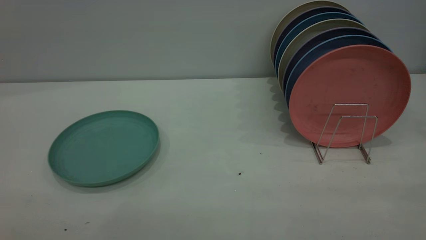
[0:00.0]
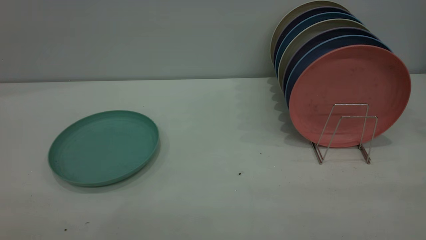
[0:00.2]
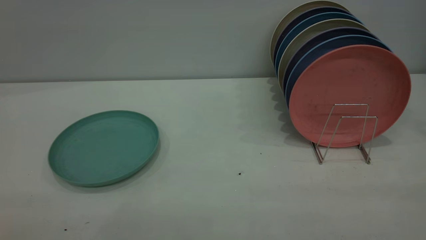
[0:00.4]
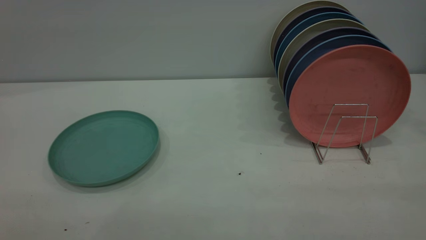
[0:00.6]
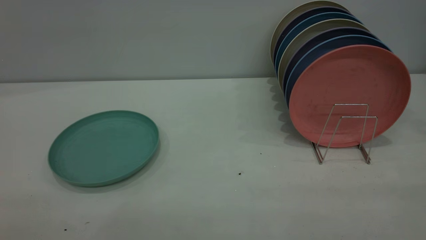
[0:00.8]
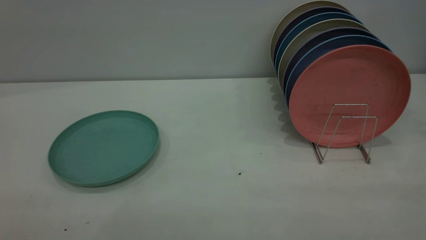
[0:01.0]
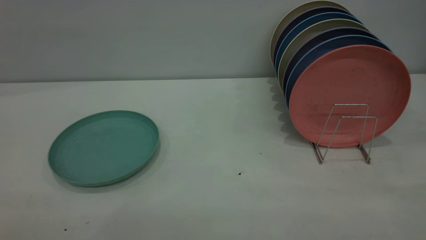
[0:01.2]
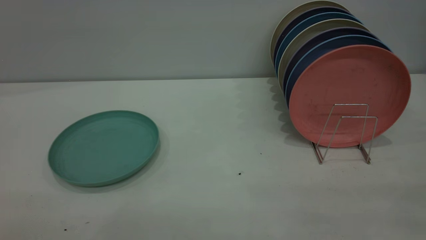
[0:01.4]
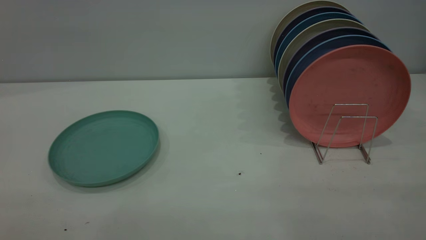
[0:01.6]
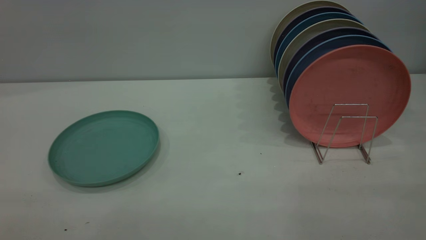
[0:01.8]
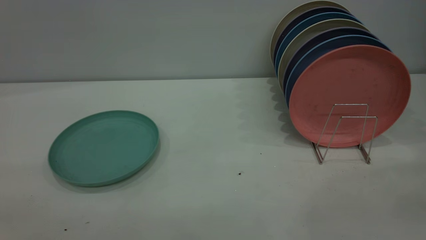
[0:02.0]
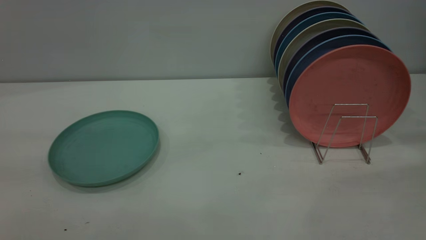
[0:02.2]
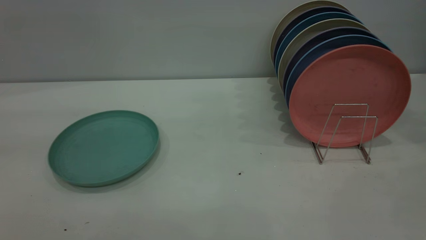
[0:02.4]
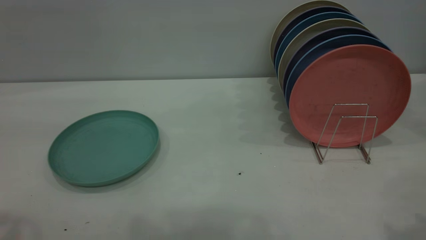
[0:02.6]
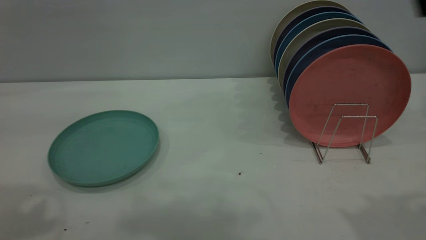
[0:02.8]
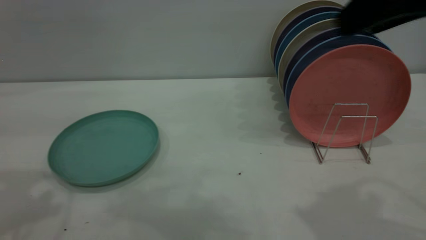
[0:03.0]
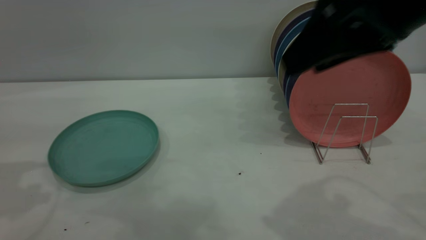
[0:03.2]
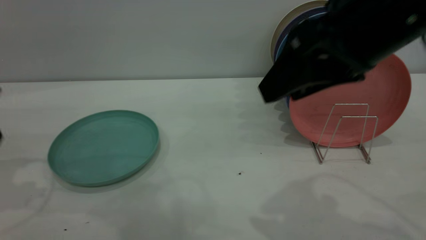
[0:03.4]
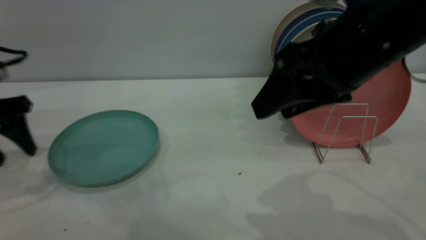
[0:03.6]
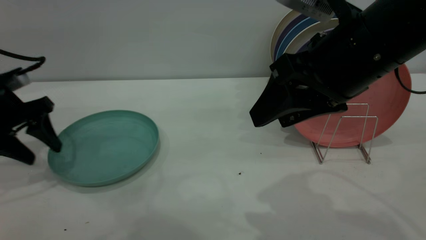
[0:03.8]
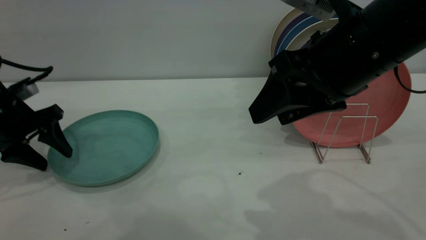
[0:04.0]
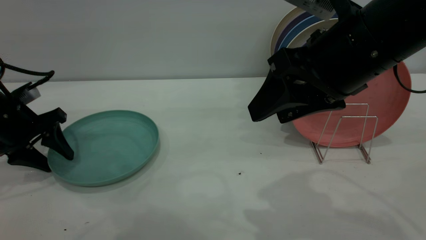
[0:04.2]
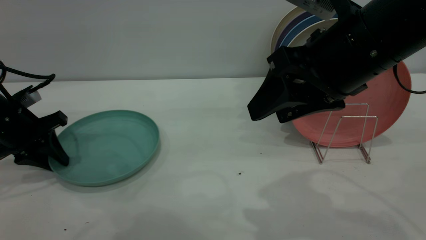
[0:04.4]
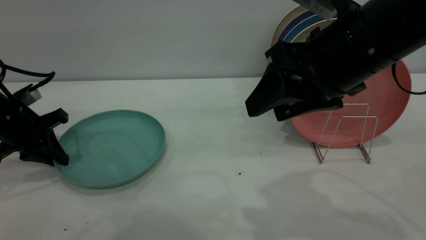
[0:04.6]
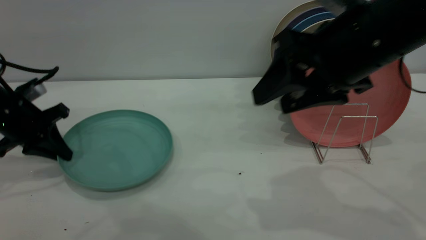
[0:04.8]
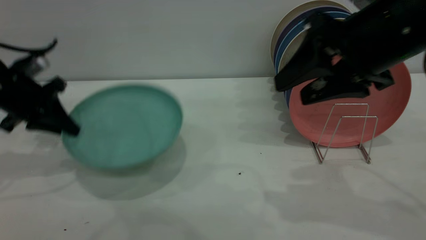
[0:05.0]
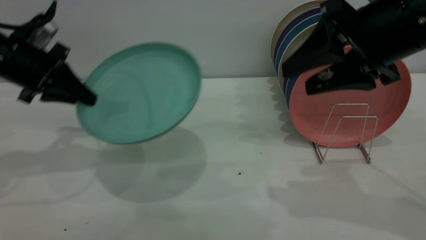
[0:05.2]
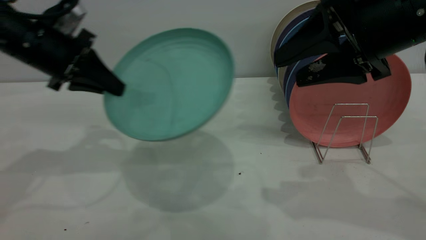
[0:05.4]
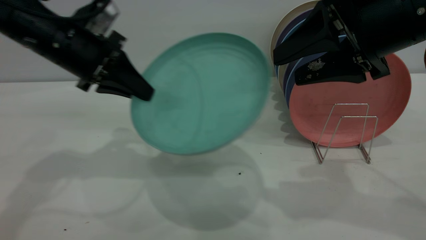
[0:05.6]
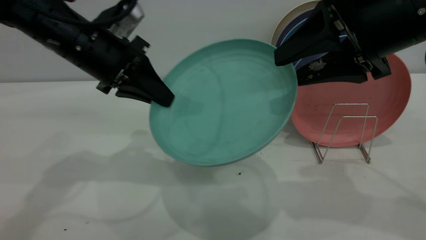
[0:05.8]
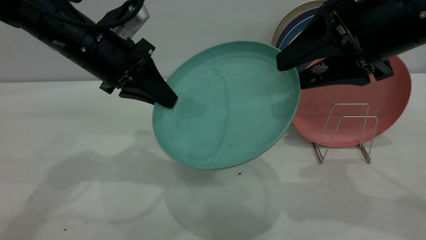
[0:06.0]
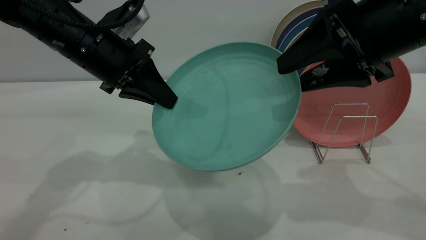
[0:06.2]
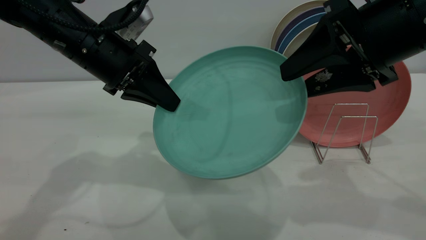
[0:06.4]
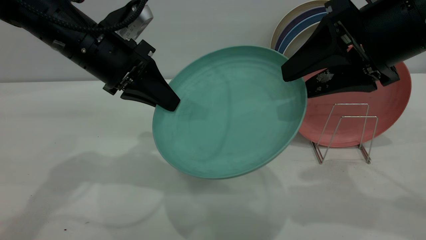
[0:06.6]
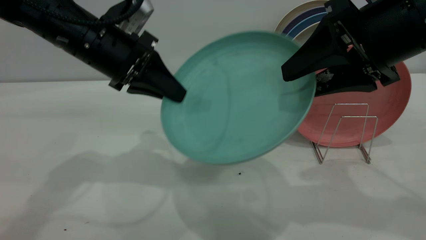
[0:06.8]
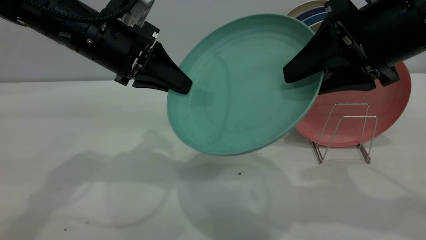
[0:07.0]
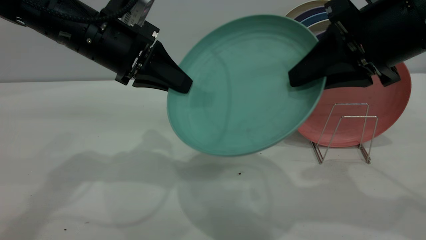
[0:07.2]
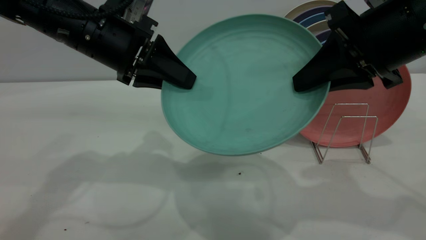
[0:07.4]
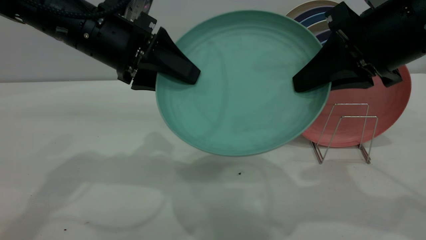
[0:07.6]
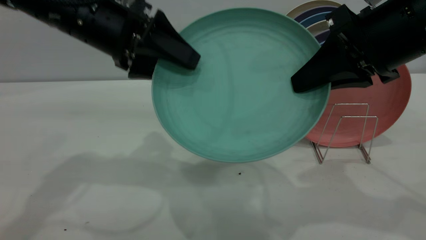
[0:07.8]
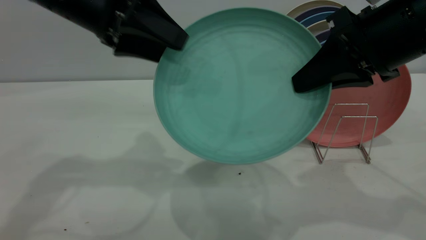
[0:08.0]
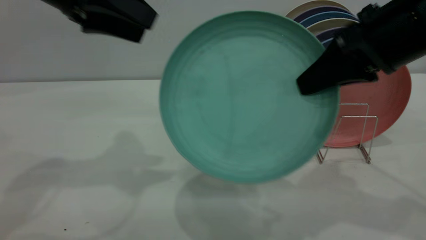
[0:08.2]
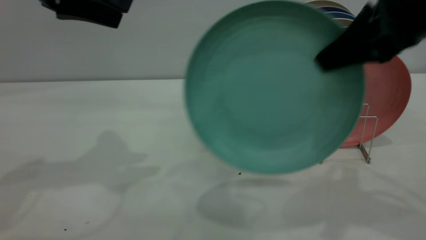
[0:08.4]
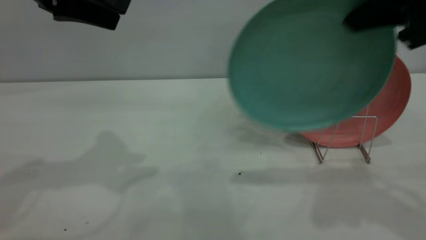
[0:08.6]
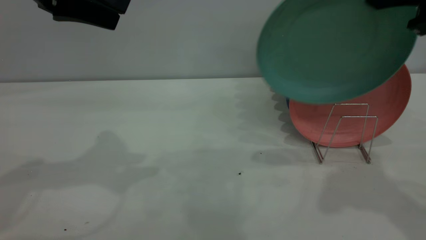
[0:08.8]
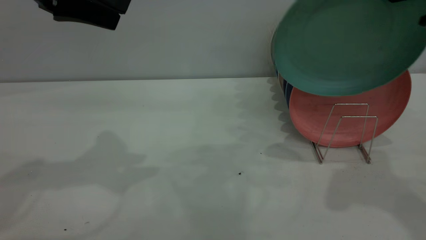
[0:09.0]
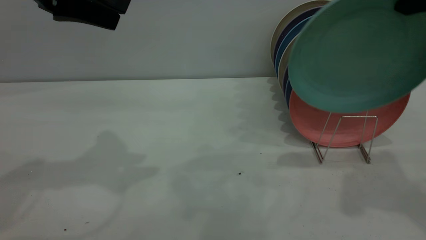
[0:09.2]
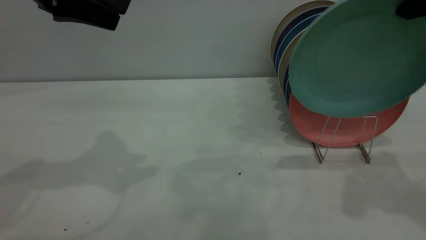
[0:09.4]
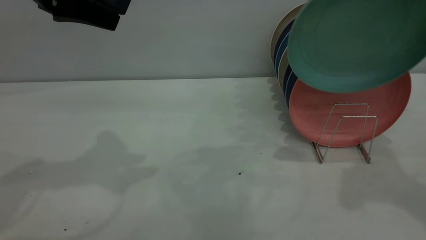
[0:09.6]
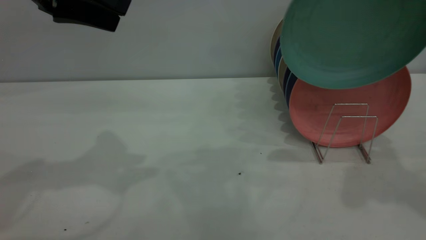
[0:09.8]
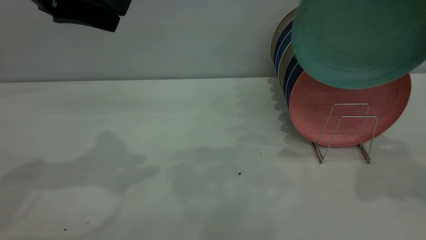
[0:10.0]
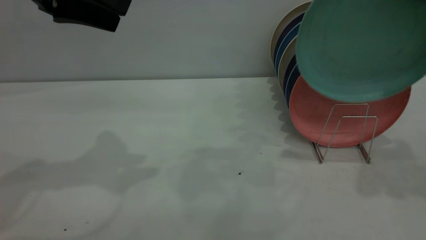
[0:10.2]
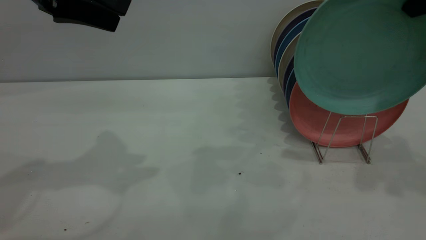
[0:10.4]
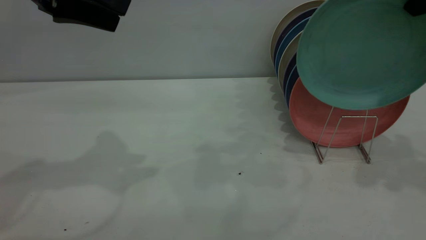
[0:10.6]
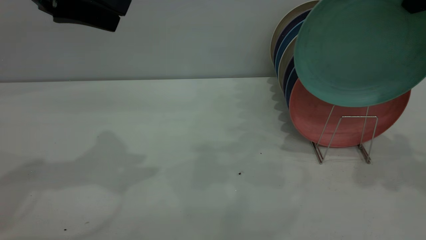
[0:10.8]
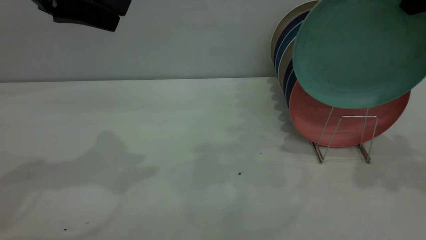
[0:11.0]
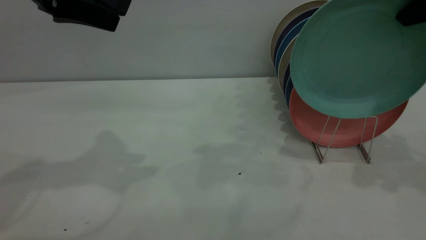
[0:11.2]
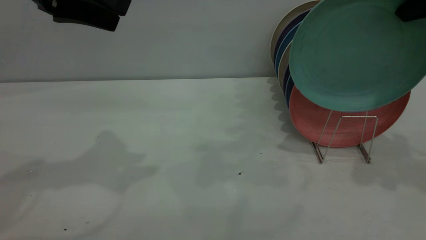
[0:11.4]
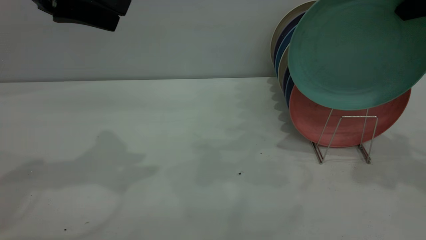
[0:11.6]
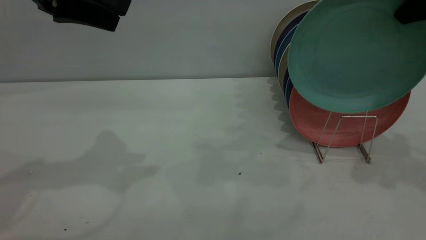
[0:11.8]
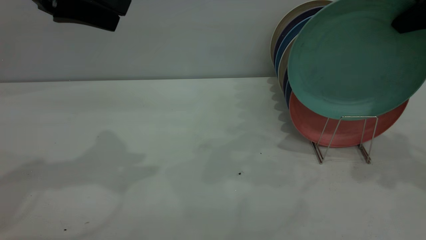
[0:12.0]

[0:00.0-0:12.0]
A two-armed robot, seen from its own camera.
Task of the whole recording: the left gripper grasp the green plate, the left gripper pass the green plate to the right gripper, and the right gripper place the green plate on the plate rack.
Step, 0:00.0 to 0:04.8: Pick up the plate with the left gripper.
Step, 0:05.0 to 0:08.0: Pass the plate from the left gripper to the right gripper.
0:00.0 to 0:01.6: The two grippers keep their place.
0:01.6 to 0:03.0: The right gripper travels forward and to the left by approximately 30 cm.
0:03.0 to 0:04.4: The right gripper heads downward and to the left, covering approximately 10 cm, while the left gripper shifts approximately 25 cm downward and forward, and closes its fingers.
0:04.4 to 0:06.0: The right gripper goes about 5 cm to the right. Meanwhile the left gripper goes some 20 cm to the right and upward.
0:06.0 to 0:07.6: The left gripper opens. Meanwhile the right gripper closes its fingers.
0:07.6 to 0:09.0: The left gripper is displaced upward and to the left by approximately 10 cm, while the right gripper goes some 10 cm upward and to the right.
0:09.0 to 0:10.4: The right gripper shifts by roughly 5 cm.
0:10.4 to 0:12.0: There are only small adjustments of the grippers.

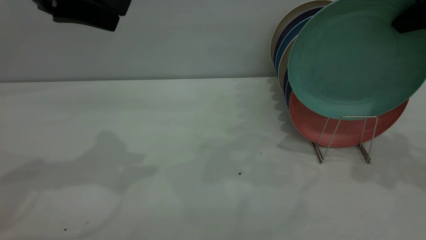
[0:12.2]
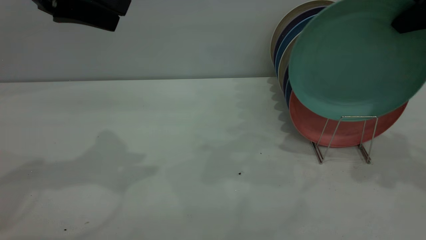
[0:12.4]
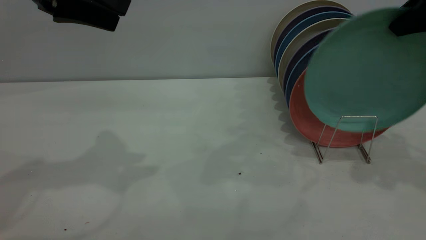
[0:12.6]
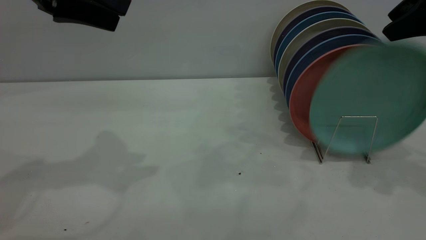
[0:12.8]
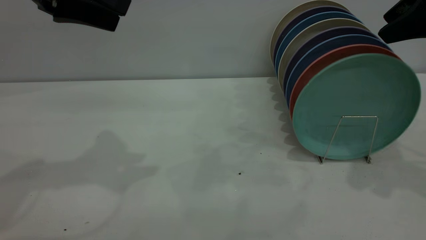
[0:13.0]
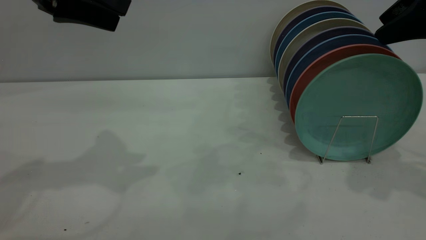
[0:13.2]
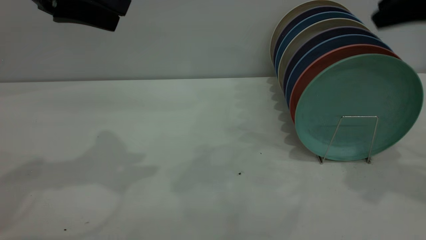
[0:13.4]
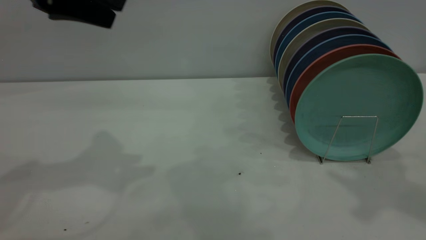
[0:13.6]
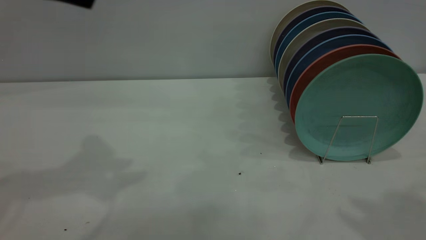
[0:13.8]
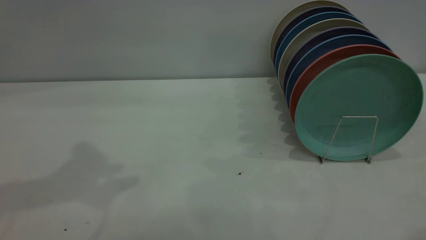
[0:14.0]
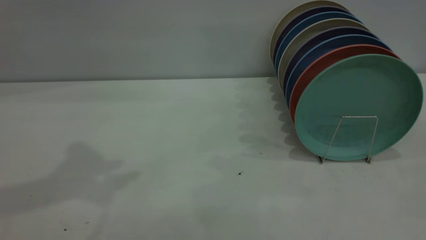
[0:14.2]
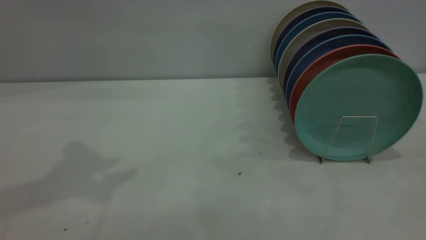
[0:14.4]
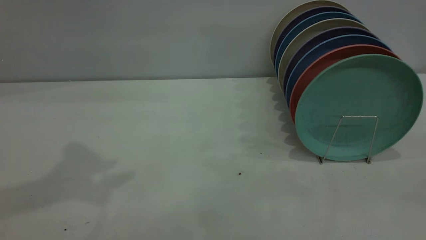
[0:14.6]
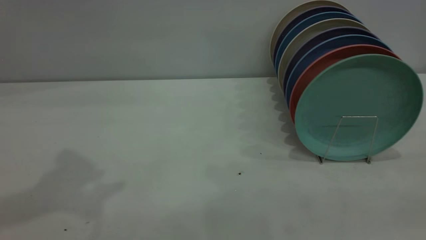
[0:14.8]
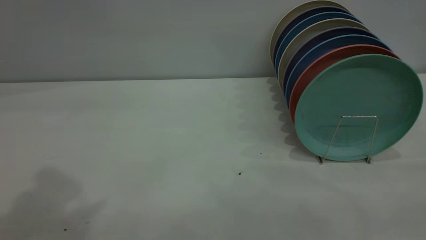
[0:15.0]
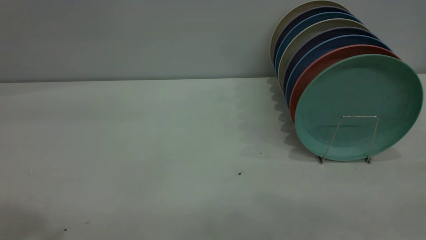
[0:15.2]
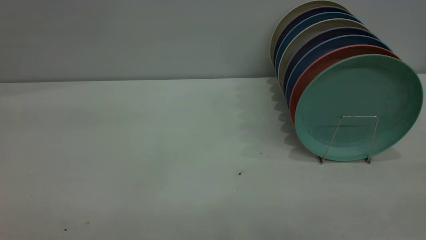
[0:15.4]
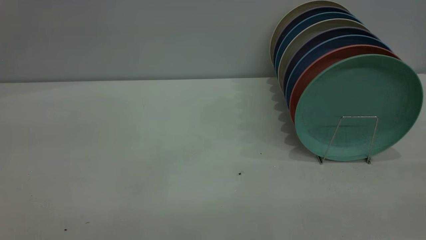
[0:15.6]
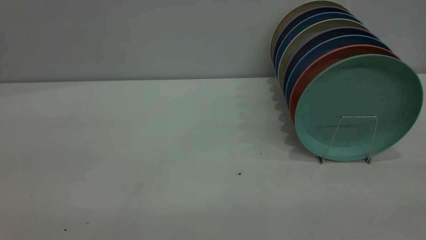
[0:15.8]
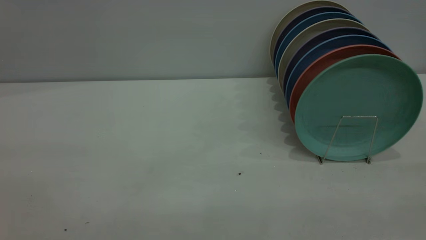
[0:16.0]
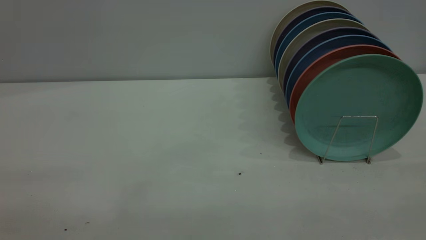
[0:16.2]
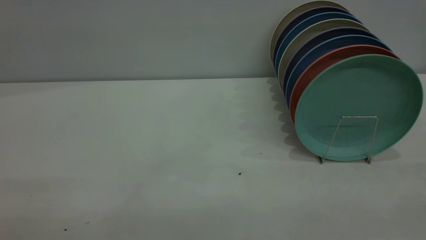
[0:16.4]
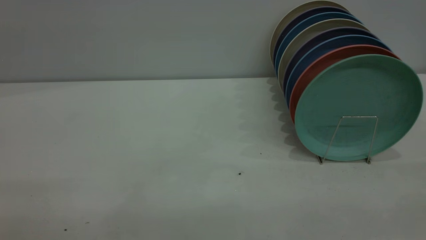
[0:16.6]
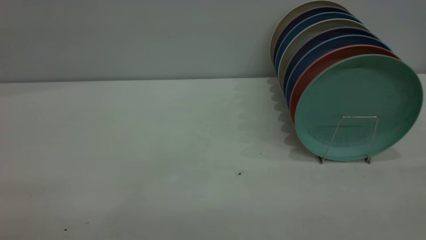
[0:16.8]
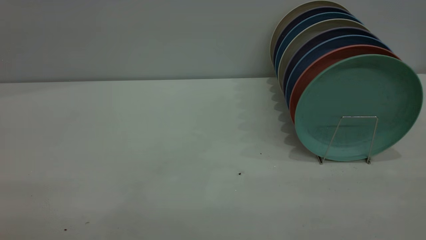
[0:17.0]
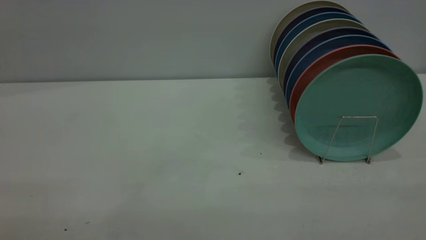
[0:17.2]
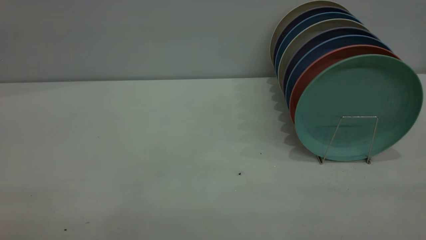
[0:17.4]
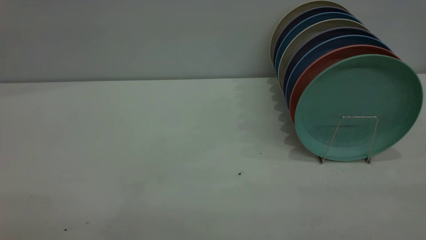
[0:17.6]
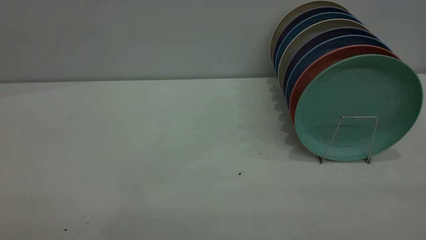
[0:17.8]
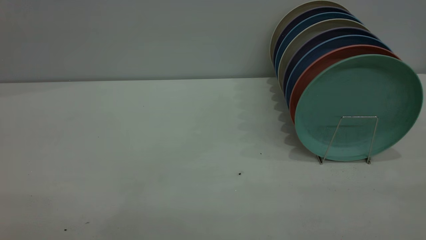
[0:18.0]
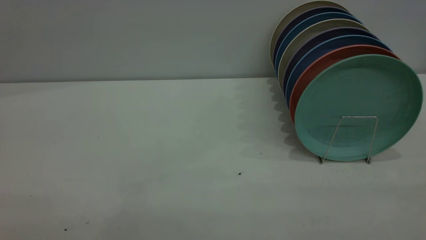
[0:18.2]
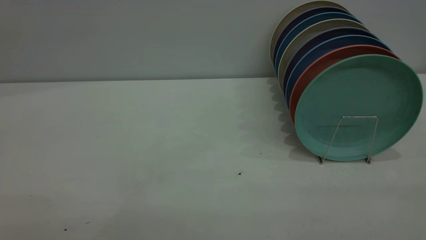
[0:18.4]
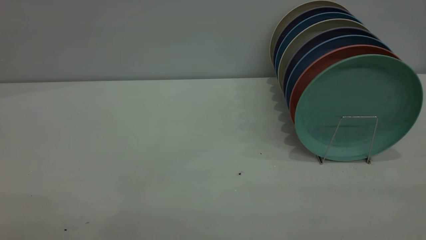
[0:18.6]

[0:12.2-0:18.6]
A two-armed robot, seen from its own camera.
Task of the whole recording: the left gripper grasp the green plate, the left gripper pass the green plate to the right gripper, and the right gripper place the green plate on the plate rack.
0:12.2 to 0:13.8: The left gripper changes place by about 5 cm. The right gripper is displaced backward and upward by roughly 20 cm, and opens up.
